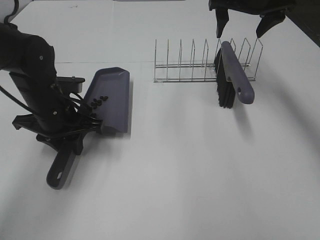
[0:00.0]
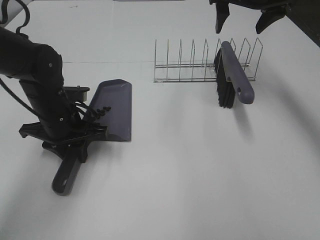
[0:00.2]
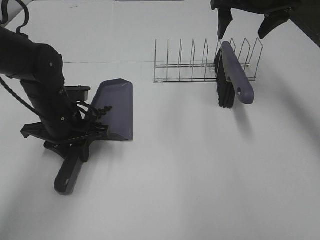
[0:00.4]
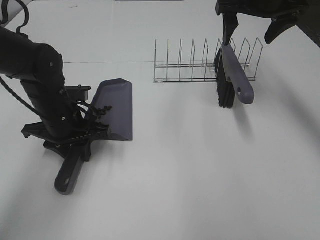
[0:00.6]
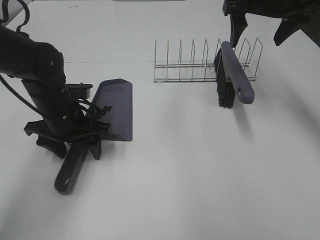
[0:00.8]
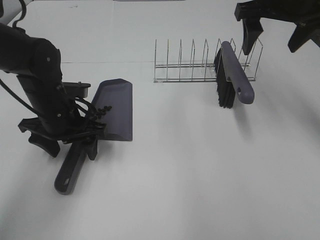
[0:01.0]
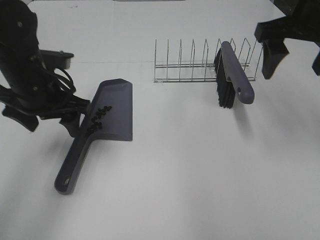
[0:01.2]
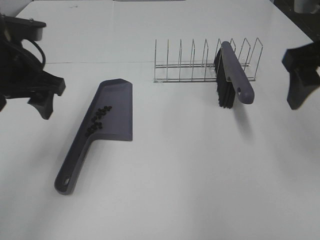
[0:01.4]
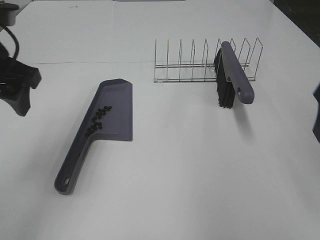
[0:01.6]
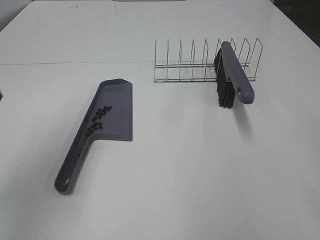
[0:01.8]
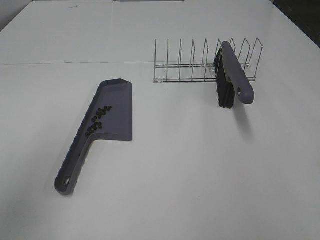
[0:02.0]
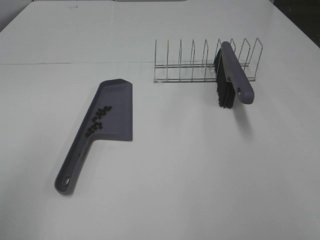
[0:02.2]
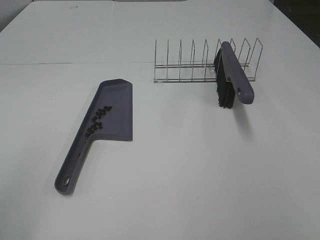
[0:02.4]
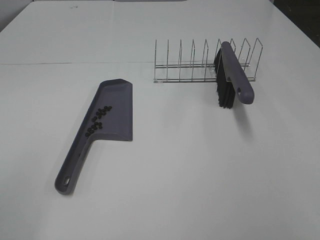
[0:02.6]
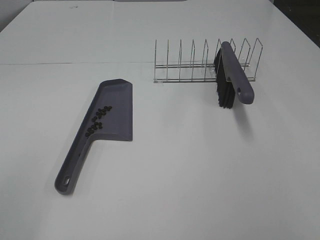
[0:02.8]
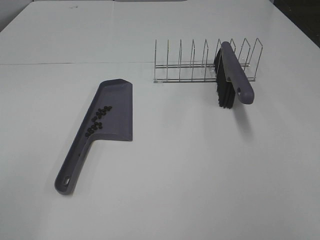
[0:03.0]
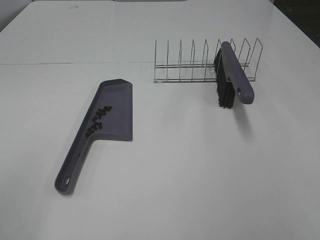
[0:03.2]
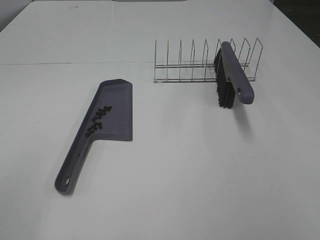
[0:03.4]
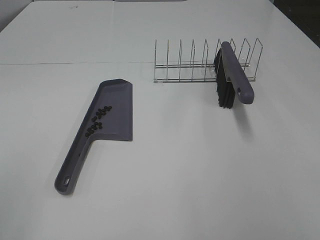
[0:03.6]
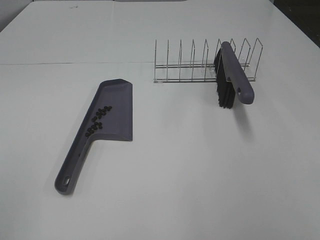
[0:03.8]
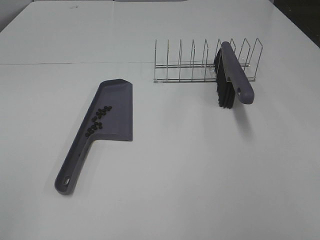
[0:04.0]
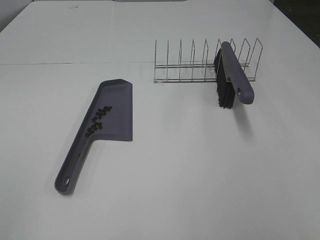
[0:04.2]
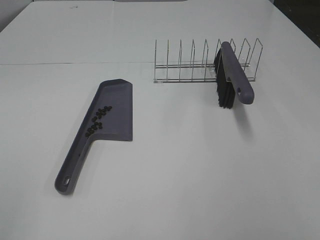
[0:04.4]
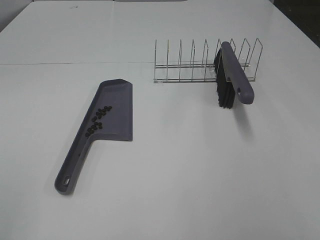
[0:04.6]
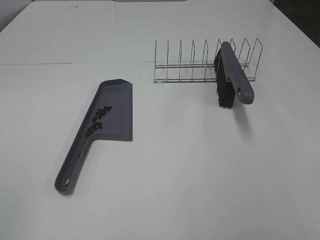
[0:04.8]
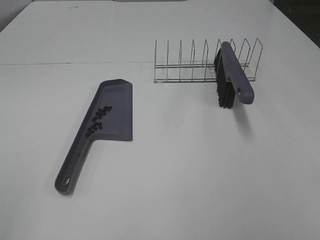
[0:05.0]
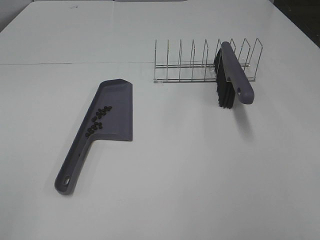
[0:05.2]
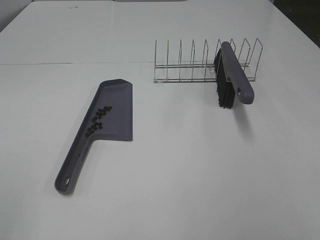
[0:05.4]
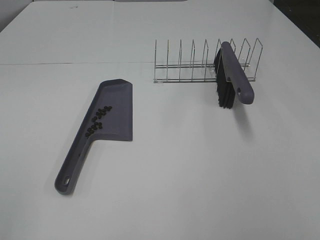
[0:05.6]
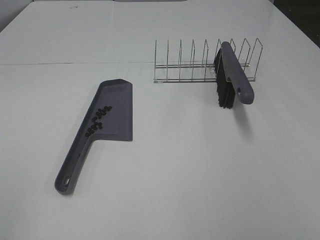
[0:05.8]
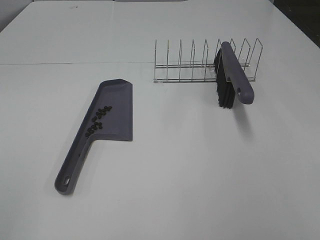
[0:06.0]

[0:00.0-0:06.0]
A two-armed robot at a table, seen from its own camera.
Task of the whole recording: Sweep Coffee Bean.
Step, 0:00.0 to 0:00.8: Left hand:place the dustpan on the table.
0:00.0 to 0:01.6: The right gripper travels backward by approximately 30 cm, while the left gripper goes some 20 cm upward and backward, and opens its fingers.
0:01.6 to 0:03.0: The left gripper travels backward by about 25 cm.
0:04.4 to 0:06.0: Neither gripper changes place.

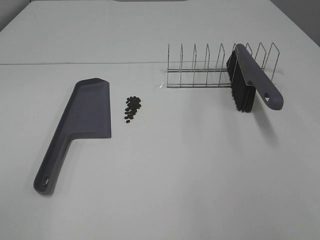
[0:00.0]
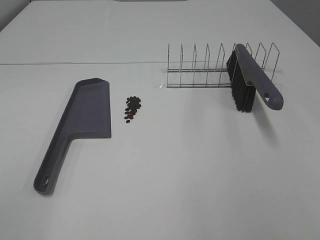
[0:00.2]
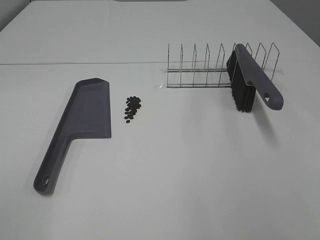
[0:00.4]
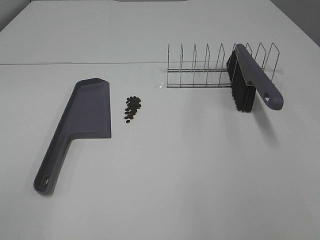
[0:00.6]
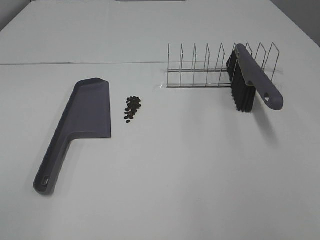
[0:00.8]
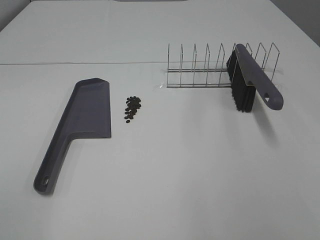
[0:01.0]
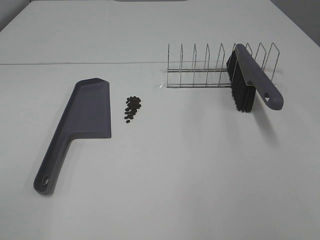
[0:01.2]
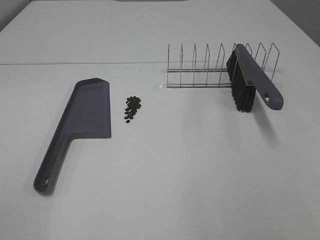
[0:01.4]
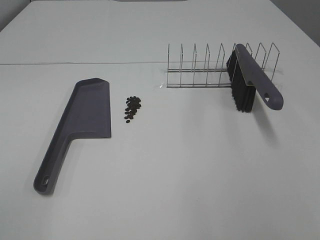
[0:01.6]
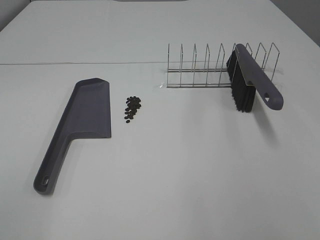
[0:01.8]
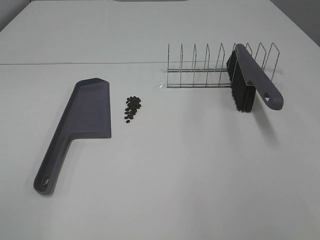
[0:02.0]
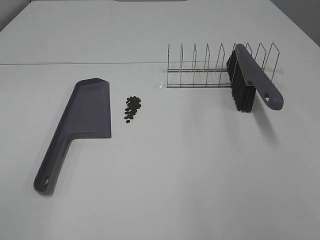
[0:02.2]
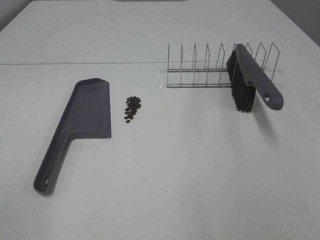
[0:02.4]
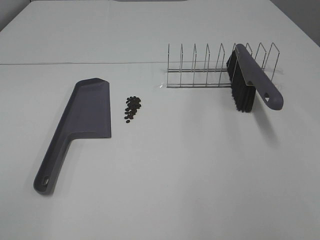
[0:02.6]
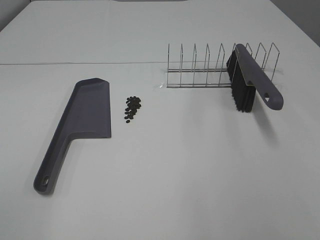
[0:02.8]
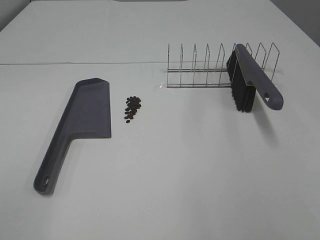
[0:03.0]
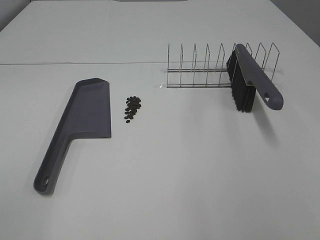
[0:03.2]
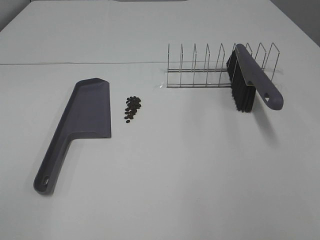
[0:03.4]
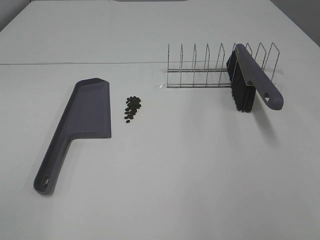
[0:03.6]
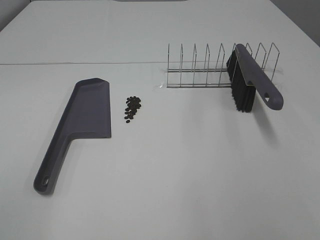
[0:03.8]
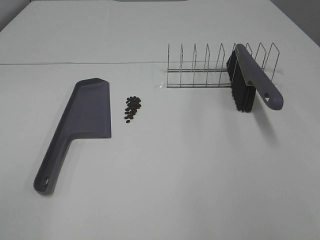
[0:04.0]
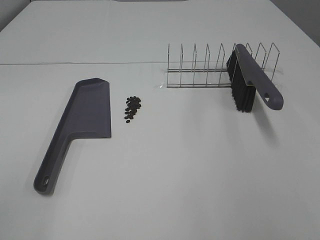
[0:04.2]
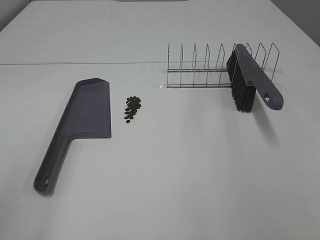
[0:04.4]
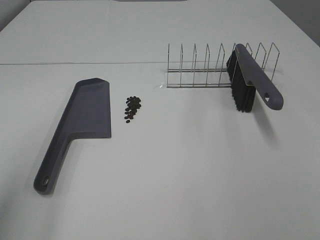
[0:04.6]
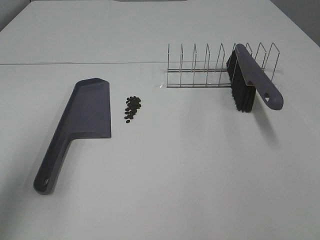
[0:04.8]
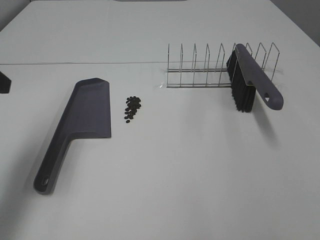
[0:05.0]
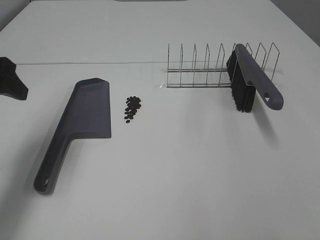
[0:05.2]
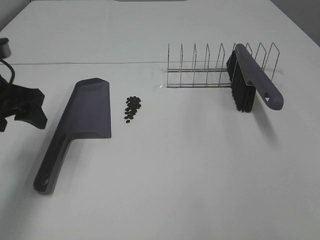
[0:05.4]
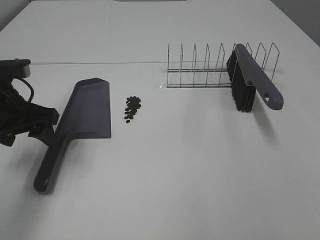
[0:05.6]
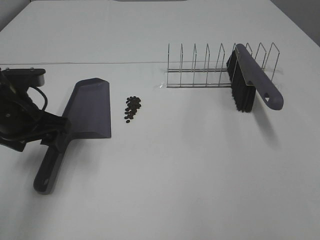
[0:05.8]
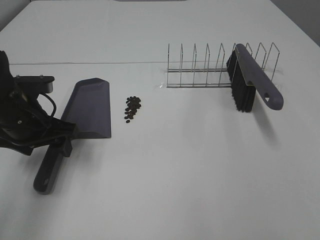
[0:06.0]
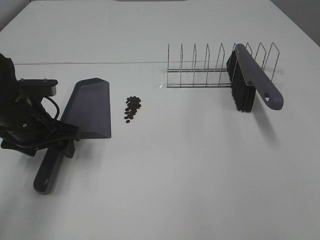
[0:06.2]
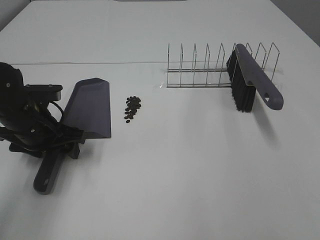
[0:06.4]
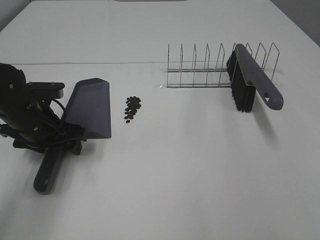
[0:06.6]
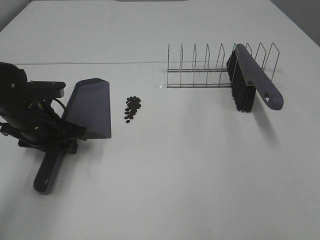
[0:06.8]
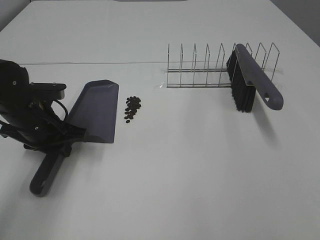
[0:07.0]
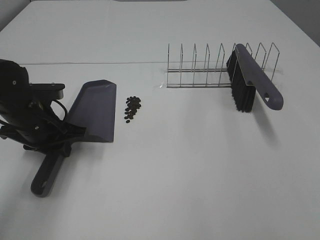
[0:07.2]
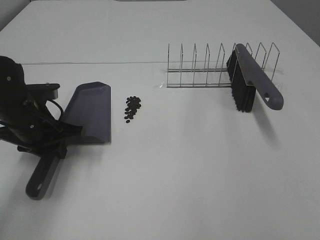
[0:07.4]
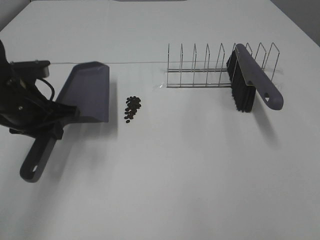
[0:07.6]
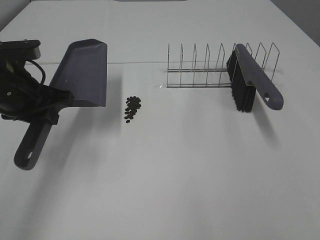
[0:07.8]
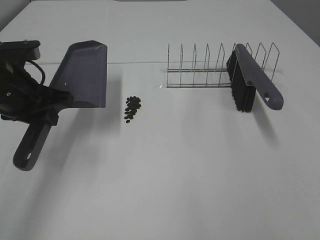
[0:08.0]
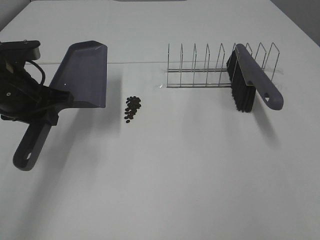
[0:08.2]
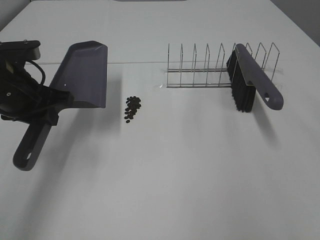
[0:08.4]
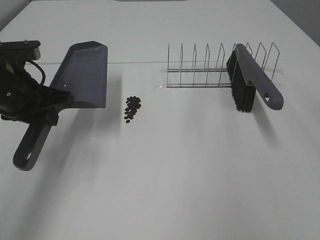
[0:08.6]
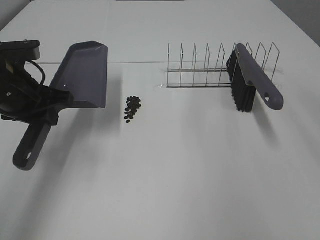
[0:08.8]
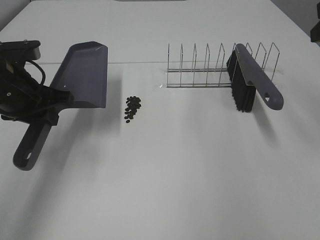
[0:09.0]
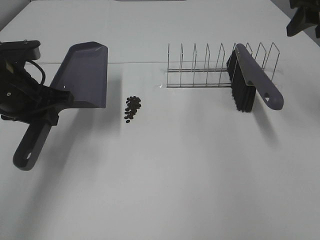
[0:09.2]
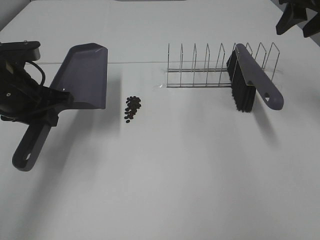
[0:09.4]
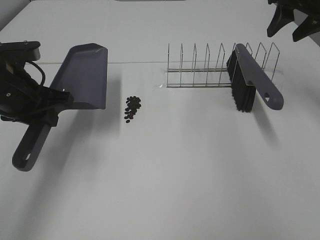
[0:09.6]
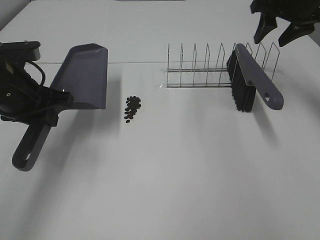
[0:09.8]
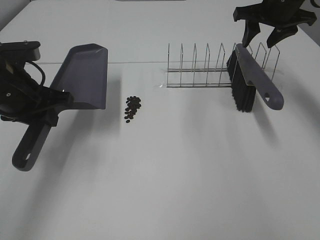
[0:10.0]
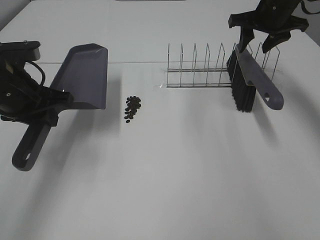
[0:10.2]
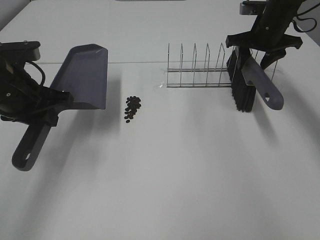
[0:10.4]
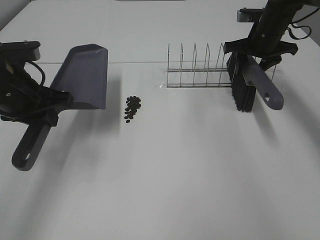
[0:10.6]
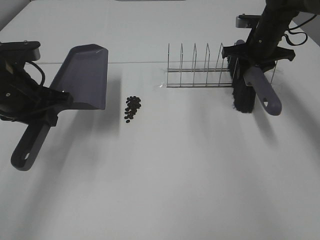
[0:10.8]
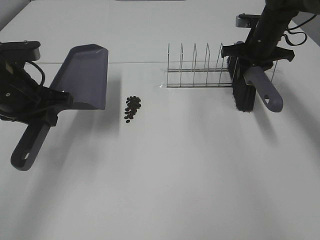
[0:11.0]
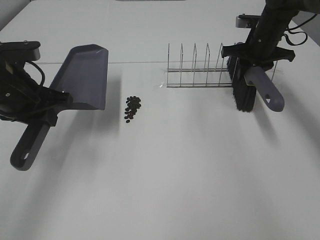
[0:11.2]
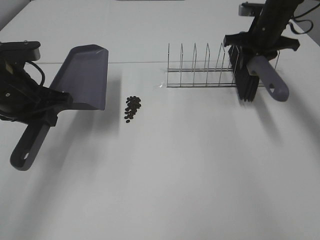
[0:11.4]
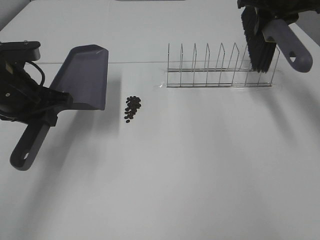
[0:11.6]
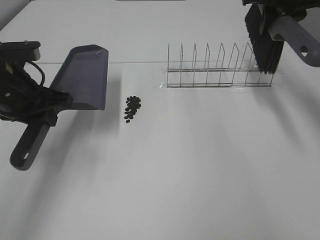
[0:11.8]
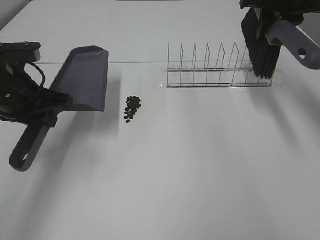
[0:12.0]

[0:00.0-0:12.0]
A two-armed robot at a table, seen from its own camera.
Task of the whole recording: Sweep Coffee Bean.
Step, 0:00.0 to 0:07.0: Left hand: grab the dustpan.
Step, 0:08.0 to 0:10.8: Right hand:grab the broom.
0:00.0 to 0:03.0: The two grippers keep their place.
0:04.4 to 0:06.0: The left gripper moves forward and downward, roughly 30 cm.
0:06.0 to 0:07.6: The left gripper closes its fingers.
0:07.6 to 0:09.0: The right gripper moves forward, approximately 30 cm.
0:09.0 to 0:10.4: The right gripper heads forward and downward, covering about 25 cm.
0:10.4 to 0:12.0: The right gripper heads upward, covering roughly 10 cm, and closes.

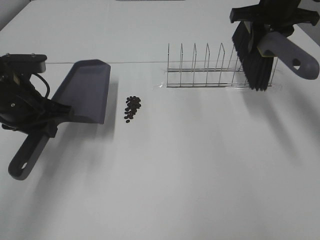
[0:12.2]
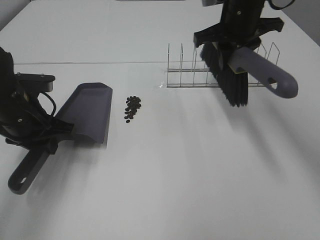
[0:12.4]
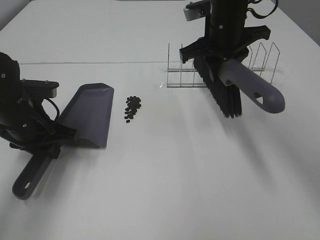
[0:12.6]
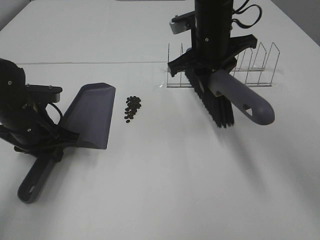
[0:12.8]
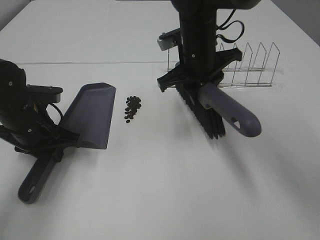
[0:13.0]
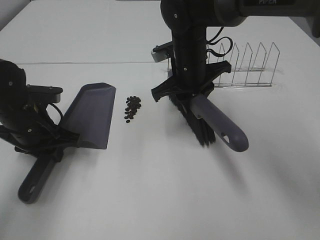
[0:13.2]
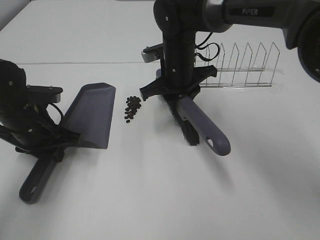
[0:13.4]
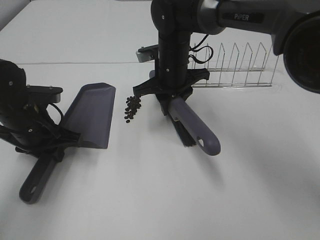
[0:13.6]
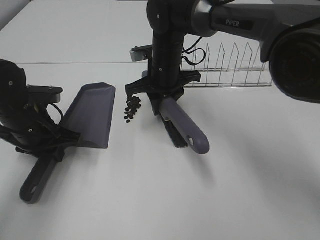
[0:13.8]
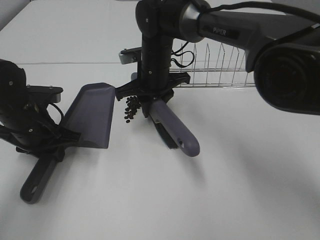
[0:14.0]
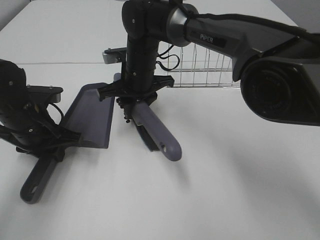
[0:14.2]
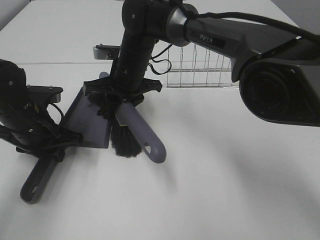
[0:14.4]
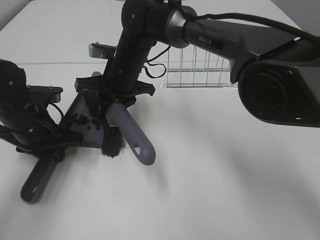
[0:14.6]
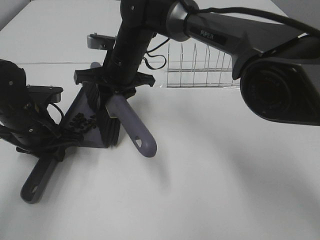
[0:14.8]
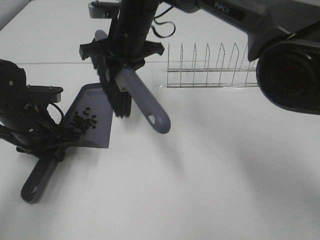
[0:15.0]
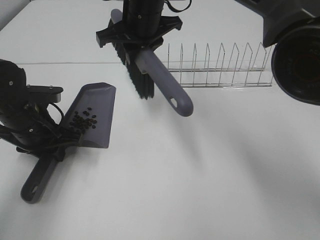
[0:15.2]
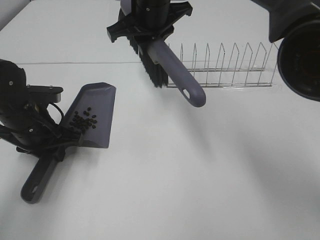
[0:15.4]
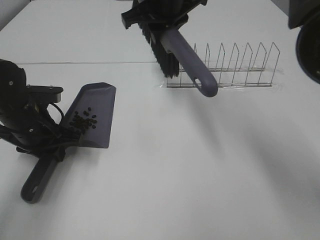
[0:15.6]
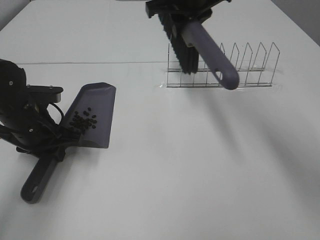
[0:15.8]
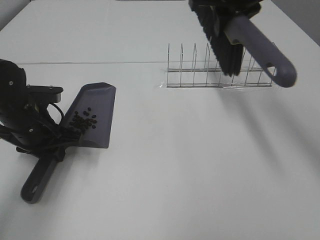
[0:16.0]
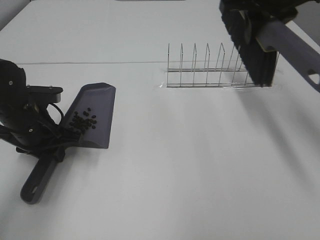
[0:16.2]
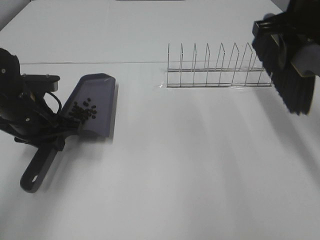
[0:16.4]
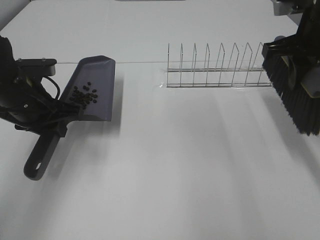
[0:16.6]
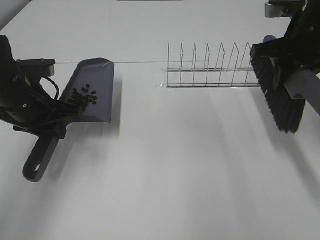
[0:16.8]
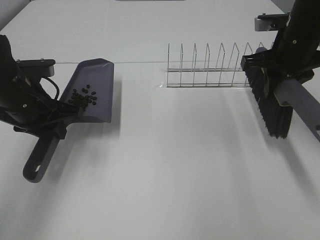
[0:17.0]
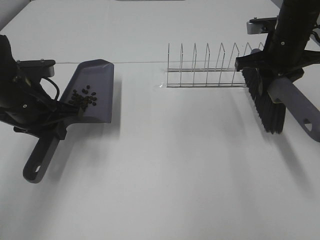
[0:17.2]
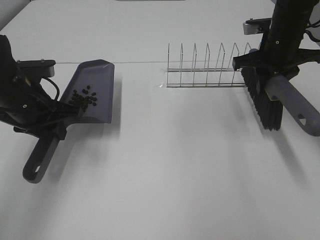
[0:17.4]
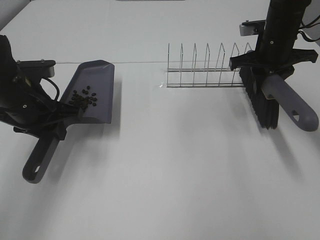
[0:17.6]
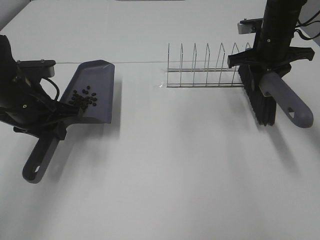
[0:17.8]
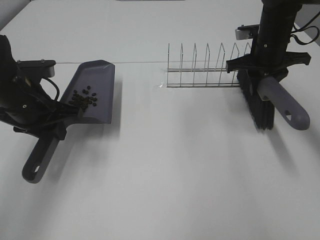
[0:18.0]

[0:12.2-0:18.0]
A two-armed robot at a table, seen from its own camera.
Task of the whole recording: Sweep Coffee Bean.
Step, 0:12.2 to 0:14.8: Right hand:sweep the coffee beans into the dustpan.
0:12.2 to 0:13.6: The left gripper shifts about 5 cm downward. Meanwhile the right gripper goes some 20 cm to the left and downward.
0:13.6 to 0:15.0: The right gripper heads upward and to the left, covering approximately 10 cm.
0:15.0 to 0:16.6: The right gripper moves to the right, approximately 30 cm. Meanwhile the left gripper shifts by about 5 cm.
0:16.6 to 0:18.0: The right gripper goes roughly 15 cm forward and downward.
